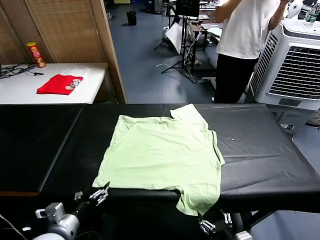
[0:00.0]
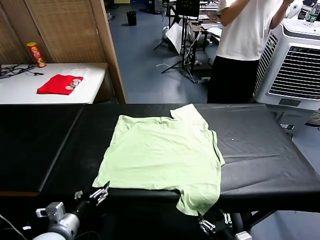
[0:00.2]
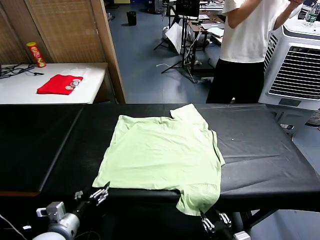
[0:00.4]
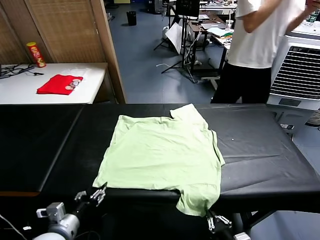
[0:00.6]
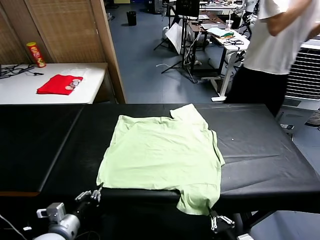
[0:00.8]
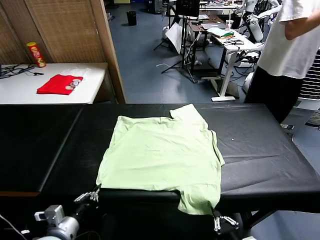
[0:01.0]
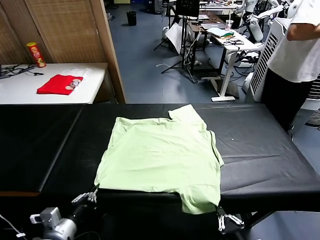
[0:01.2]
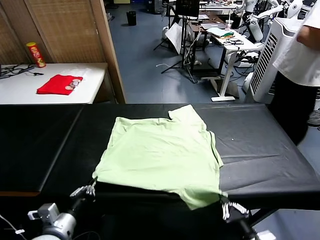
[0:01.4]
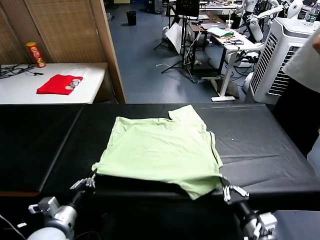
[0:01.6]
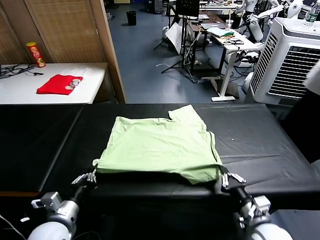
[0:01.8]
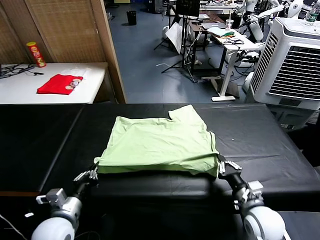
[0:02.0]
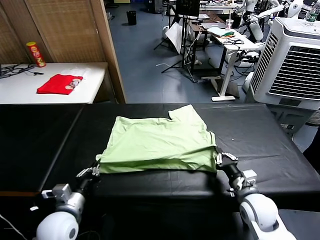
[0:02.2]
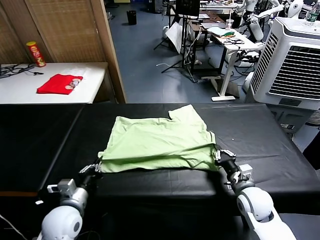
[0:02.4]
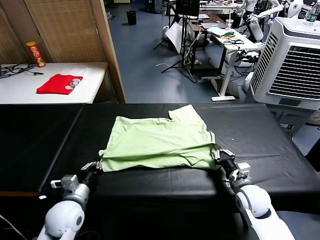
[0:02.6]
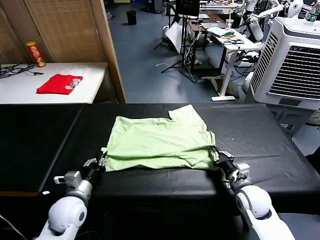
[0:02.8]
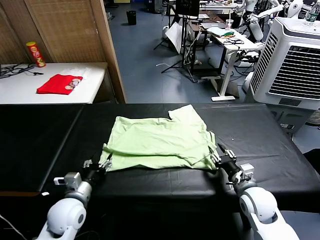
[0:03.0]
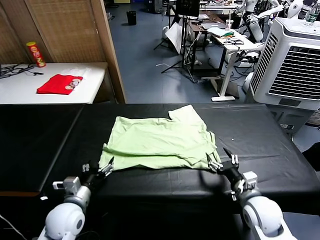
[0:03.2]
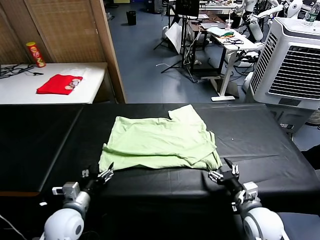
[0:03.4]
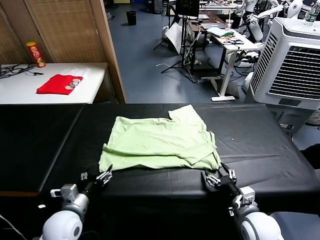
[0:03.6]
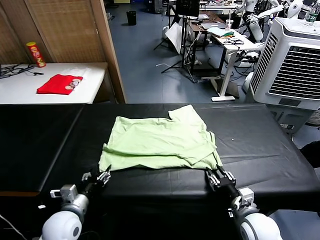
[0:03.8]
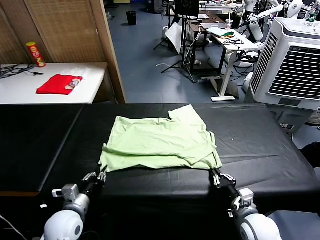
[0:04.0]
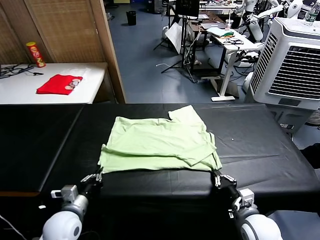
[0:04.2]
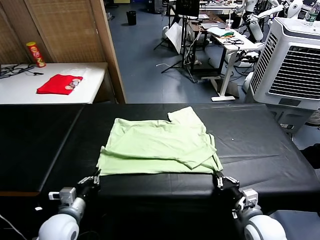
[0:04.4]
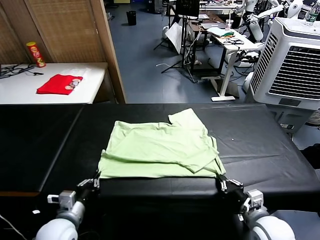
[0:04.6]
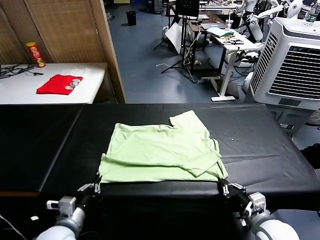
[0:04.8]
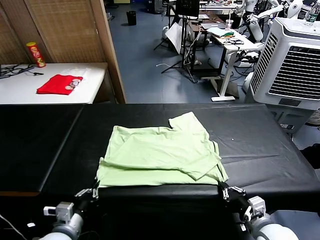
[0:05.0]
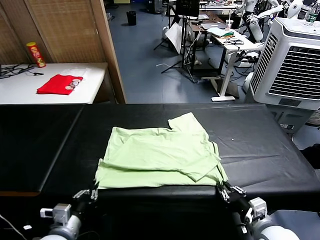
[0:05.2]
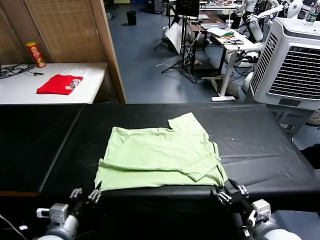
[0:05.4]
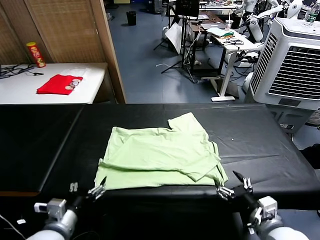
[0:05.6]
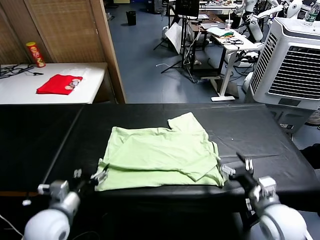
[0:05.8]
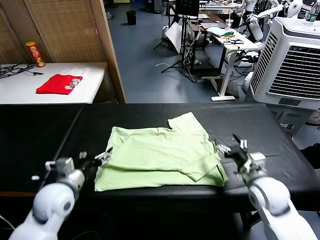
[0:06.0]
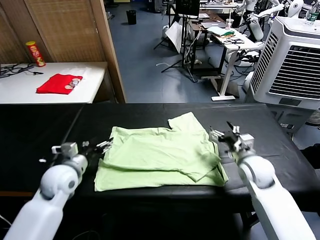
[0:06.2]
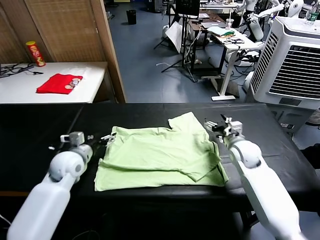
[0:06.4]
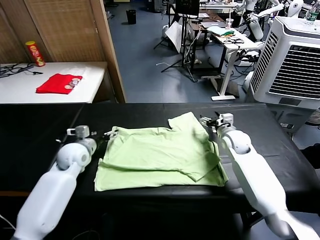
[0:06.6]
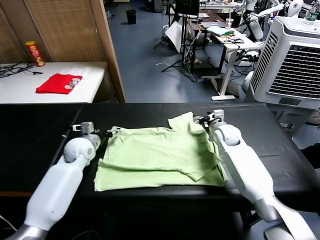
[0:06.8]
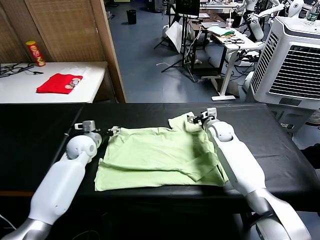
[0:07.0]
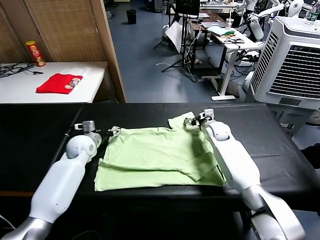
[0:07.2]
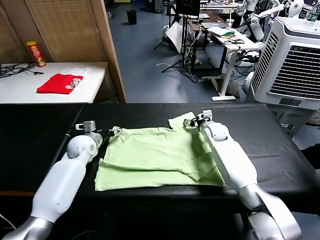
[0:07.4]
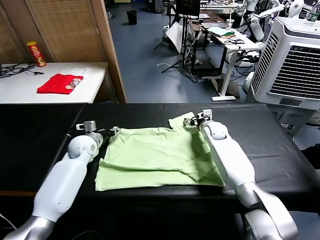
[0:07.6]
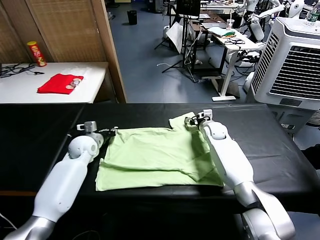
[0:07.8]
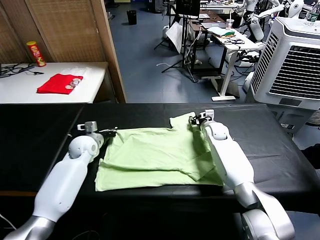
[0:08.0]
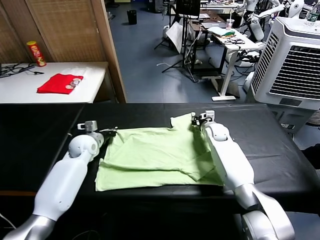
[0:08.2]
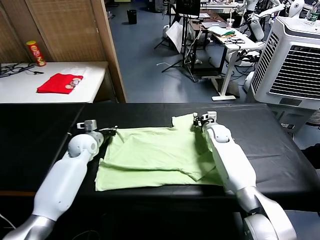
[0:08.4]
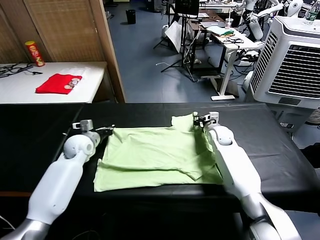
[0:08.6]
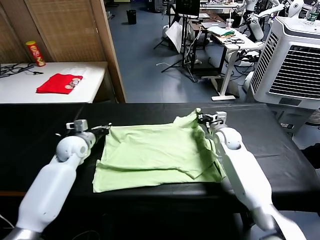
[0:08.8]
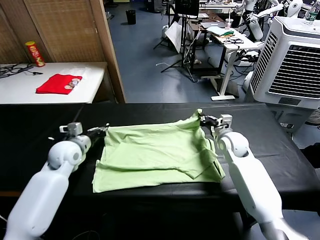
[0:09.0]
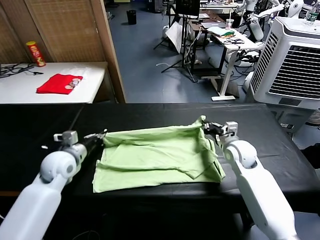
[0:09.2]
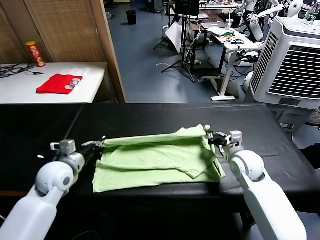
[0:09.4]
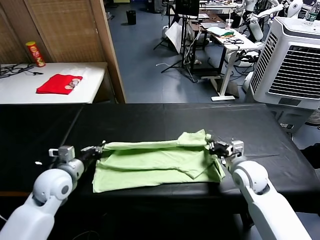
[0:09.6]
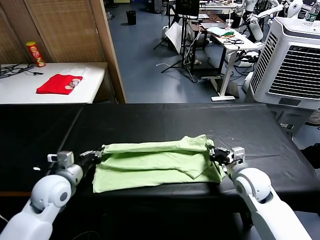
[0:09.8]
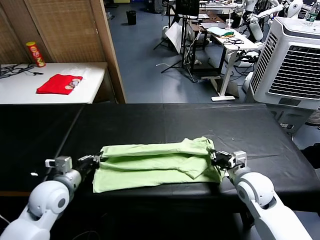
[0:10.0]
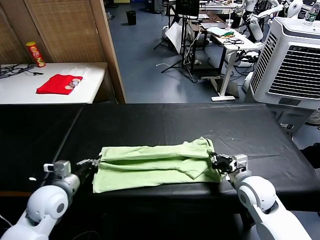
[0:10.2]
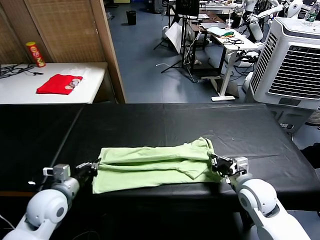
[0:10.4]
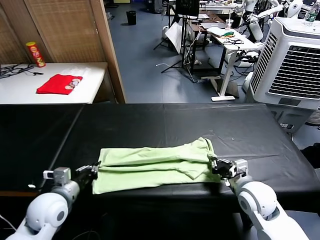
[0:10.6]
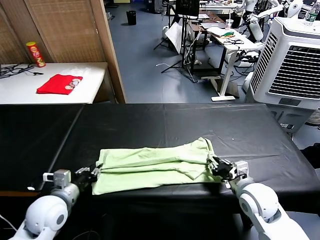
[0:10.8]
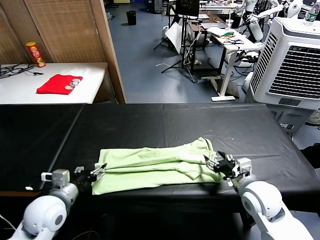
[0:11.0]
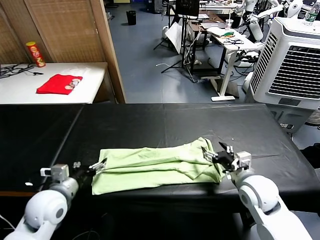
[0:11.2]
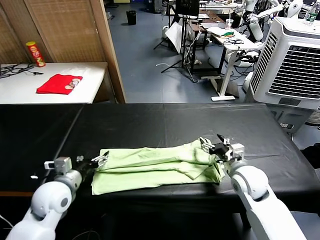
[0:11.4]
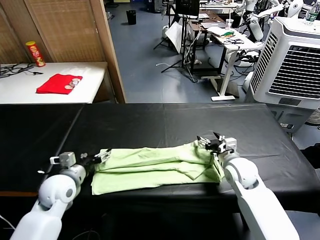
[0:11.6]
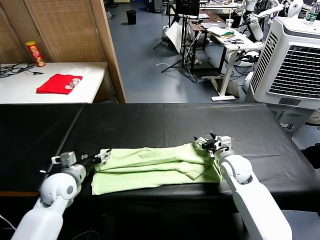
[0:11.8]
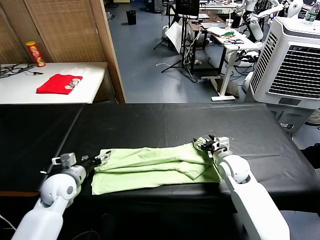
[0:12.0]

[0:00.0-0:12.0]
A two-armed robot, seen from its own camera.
Task of the whole recording: fold and organize the clothes.
Step, 0:00.0 to 0:01.0: use both grippers simultaneously to clamp the lower edge of the clothing fabric.
Step, 0:01.2 to 0:03.0: use both grippers to drag the lower edge of the fabric forward and fold it over the upper edge.
Step, 0:03.2 to 0:05.4: Drag the clothes downward with both gripper.
Step, 0:05.6 to 0:08.0: use both grippers simultaneously to clamp the upper edge of the clothing fabric.
Step, 0:08.2 to 0:11.0: use both grippers to drag the upper edge of the fabric backward and fold it over the lower edge.
0:01.6 to 0:03.0: Both grippers travel together forward, roughly 5 cm. The right gripper opens its fingers. The left gripper opens up.
0:03.0 to 0:04.4: The right gripper travels backward by some 5 cm, and closes up. Meanwhile the left gripper closes.
0:04.4 to 0:06.0: The left gripper moves forward and upward, some 10 cm, and opens its fingers; the right gripper shifts about 15 cm forward, and opens up.
0:06.0 to 0:07.6: Both grippers travel together forward, approximately 20 cm. The left gripper closes.
0:07.6 to 0:09.0: Both grippers travel together backward and upward, some 10 cm. The right gripper closes up, while the left gripper closes its fingers.
0:09.0 to 0:10.4: Both grippers move backward, approximately 15 cm.
0:10.4 to 0:12.0: The left gripper moves forward, about 5 cm, and opens up. Meanwhile the right gripper moves forward, some 10 cm, and opens up.

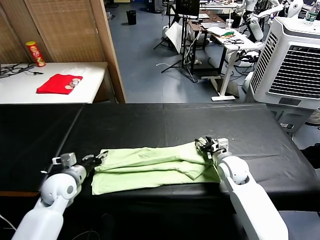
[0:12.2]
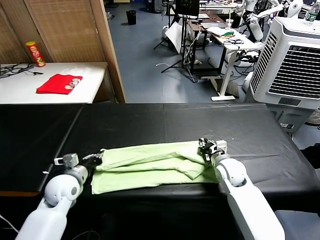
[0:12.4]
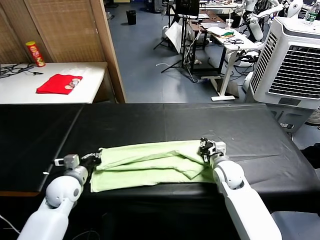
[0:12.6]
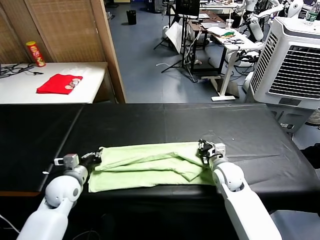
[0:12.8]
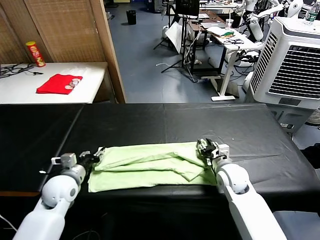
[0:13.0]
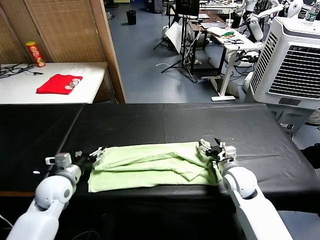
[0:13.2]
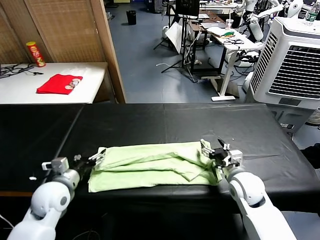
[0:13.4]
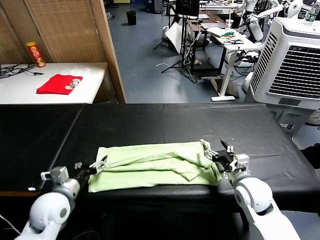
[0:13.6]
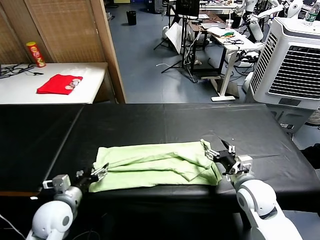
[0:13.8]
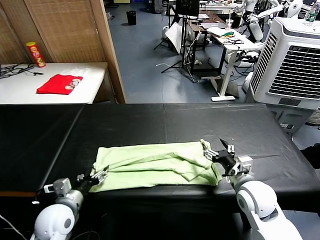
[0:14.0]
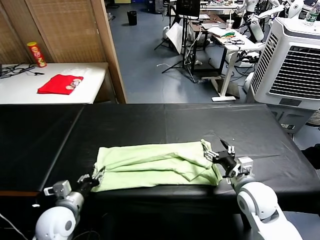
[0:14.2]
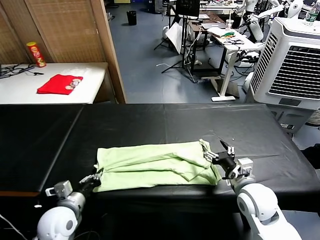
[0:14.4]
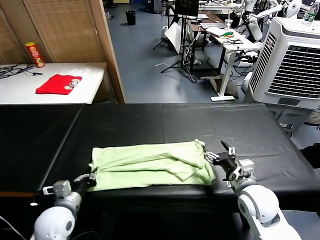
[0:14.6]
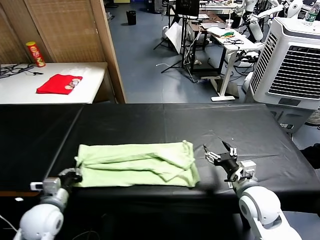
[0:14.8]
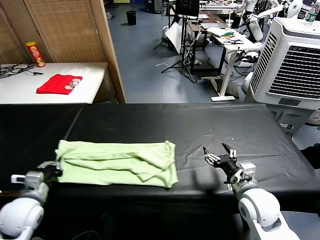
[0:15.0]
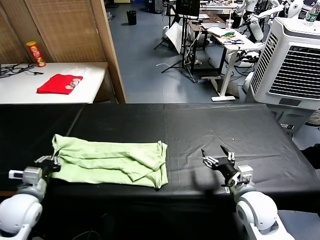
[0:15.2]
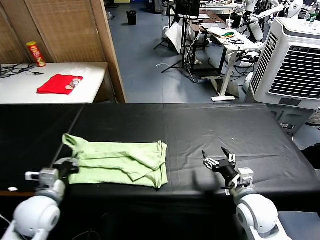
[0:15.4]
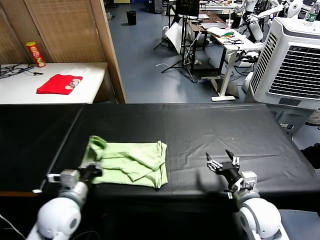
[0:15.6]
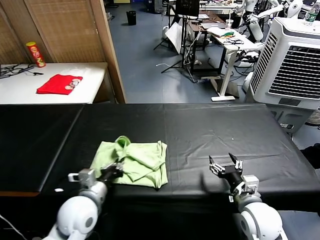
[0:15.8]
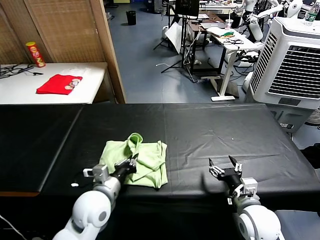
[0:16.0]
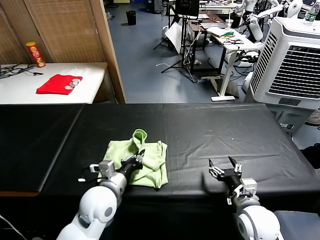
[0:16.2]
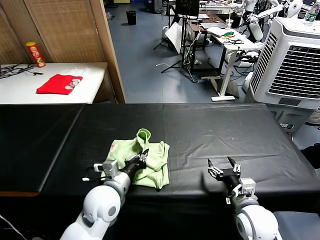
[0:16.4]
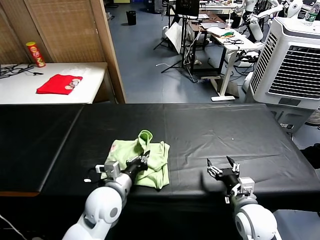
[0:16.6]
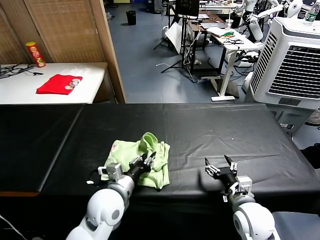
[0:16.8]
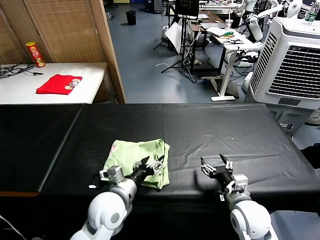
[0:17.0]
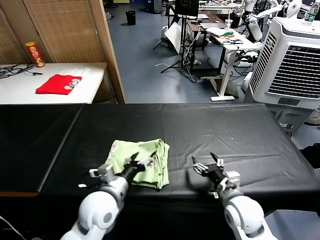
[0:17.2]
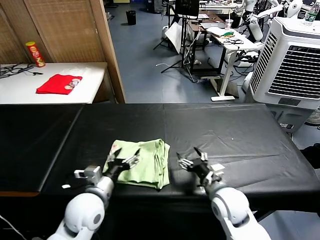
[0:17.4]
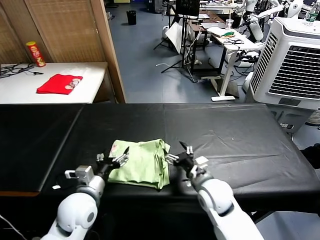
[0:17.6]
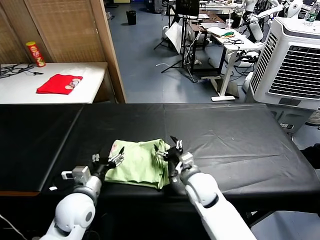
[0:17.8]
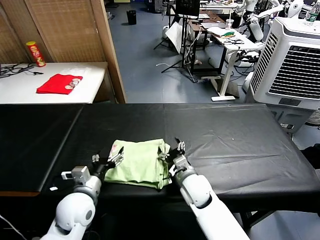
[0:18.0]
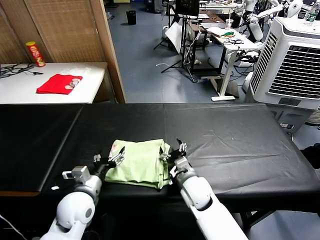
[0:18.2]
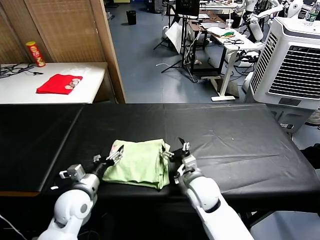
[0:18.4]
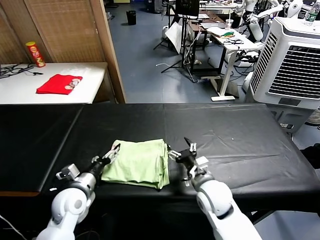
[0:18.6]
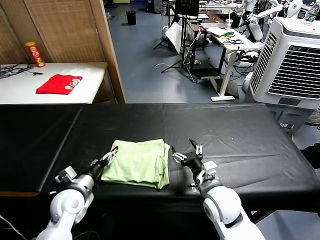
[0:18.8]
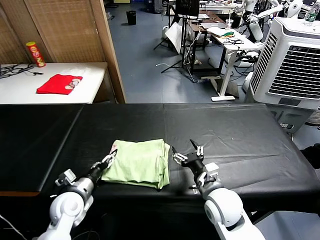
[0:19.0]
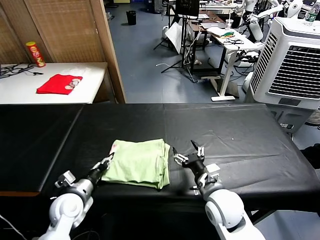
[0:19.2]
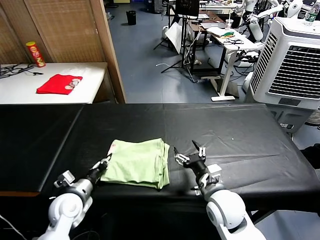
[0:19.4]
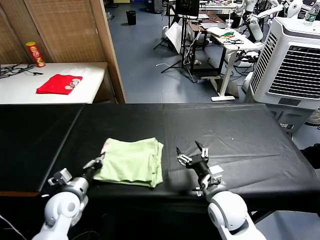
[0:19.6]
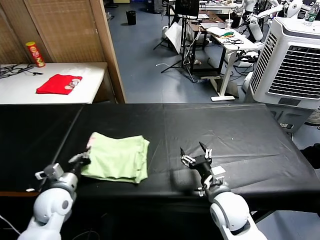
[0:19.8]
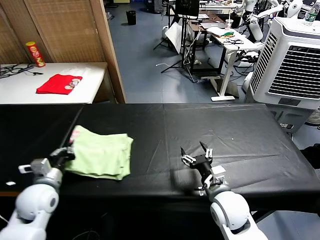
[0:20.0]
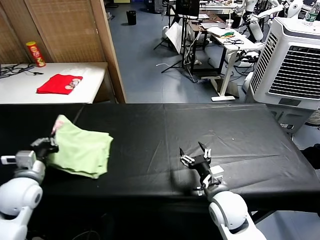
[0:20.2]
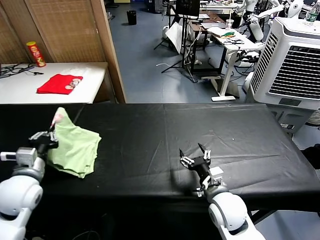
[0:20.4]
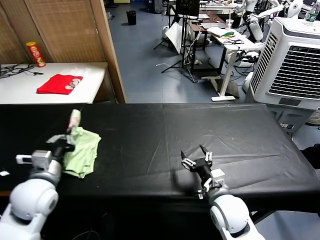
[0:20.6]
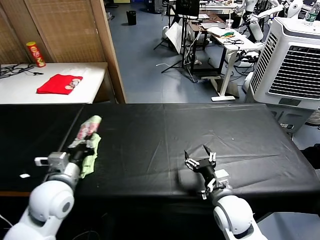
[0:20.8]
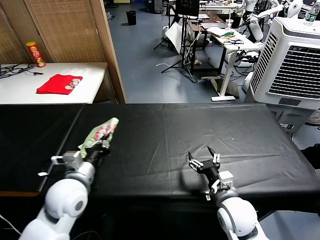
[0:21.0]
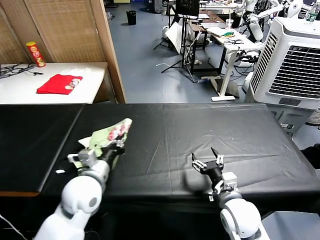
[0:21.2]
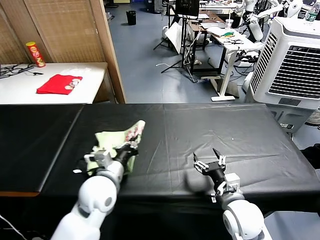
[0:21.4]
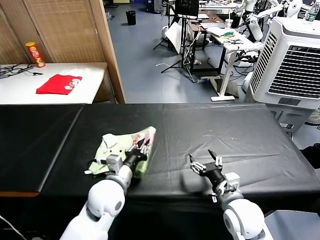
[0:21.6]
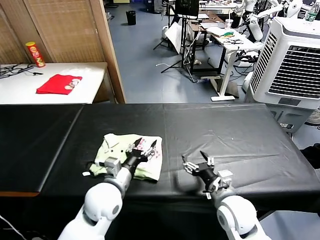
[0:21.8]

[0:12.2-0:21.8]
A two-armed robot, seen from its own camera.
Task of the whole recording: fold and organize the clothes.
Step, 0:12.2 to 0:14.2: use the left gripper to clamp the left edge of the fabric.
Step, 0:14.4 to 0:16.8: use the left gripper to drag the left edge of the fabric to the left and folds it over the right edge.
Step, 0:17.2 to 0:21.6: Flip the folded clothes over with left gripper.
0:12.2 to 0:13.8: The left gripper is displaced backward by some 10 cm, and opens up. The right gripper shifts roughly 10 cm backward and upward, and opens.
0:13.8 to 0:15.4: The left gripper travels to the left and back again, some 10 cm each way, and closes.
0:15.4 to 0:17.0: The left gripper moves to the right, roughly 20 cm, and opens up.
0:17.0 to 0:18.6: The right gripper goes approximately 10 cm to the left and forward, while the left gripper travels to the left by about 15 cm.
0:18.6 to 0:20.2: The left gripper heads to the left and upward, covering some 15 cm, and closes its fingers.
0:20.2 to 0:21.8: The left gripper moves to the right, roughly 20 cm, and opens up.
